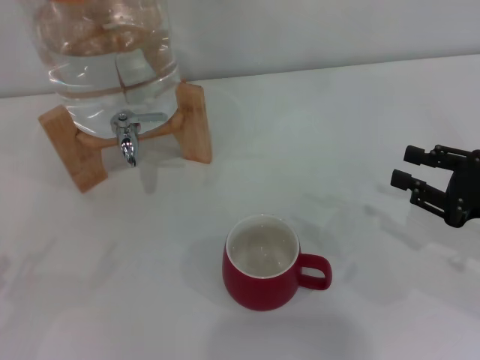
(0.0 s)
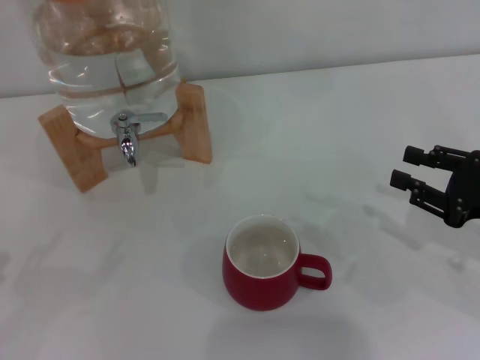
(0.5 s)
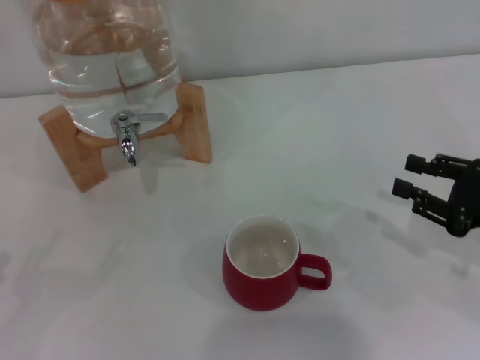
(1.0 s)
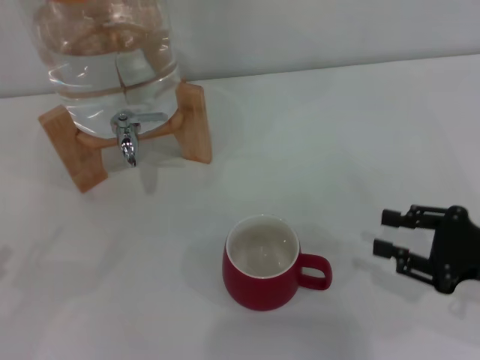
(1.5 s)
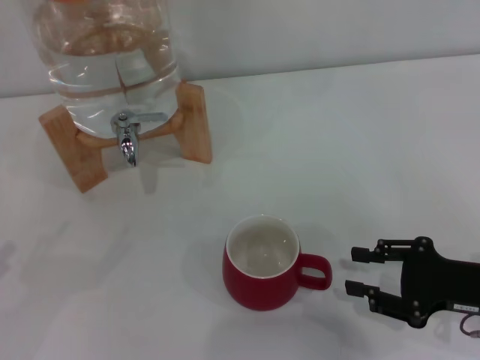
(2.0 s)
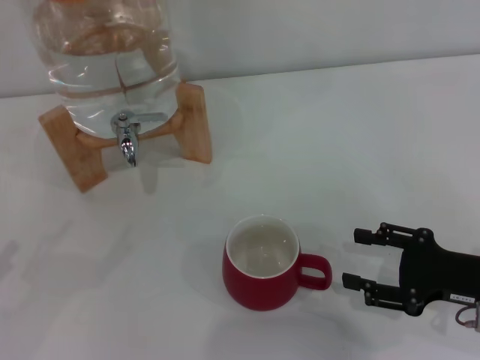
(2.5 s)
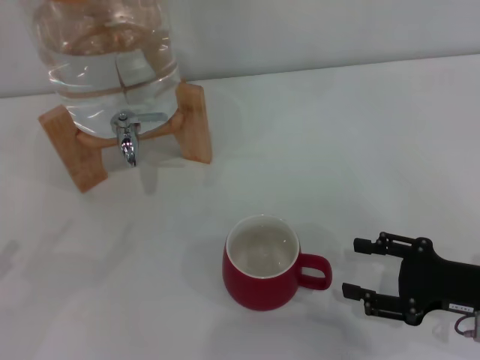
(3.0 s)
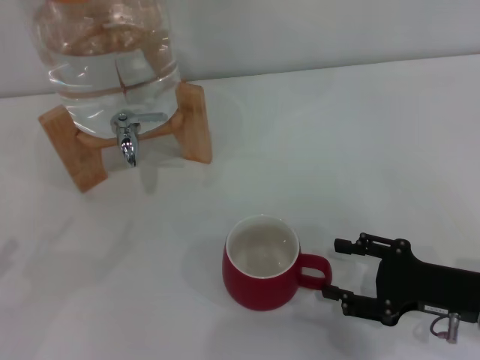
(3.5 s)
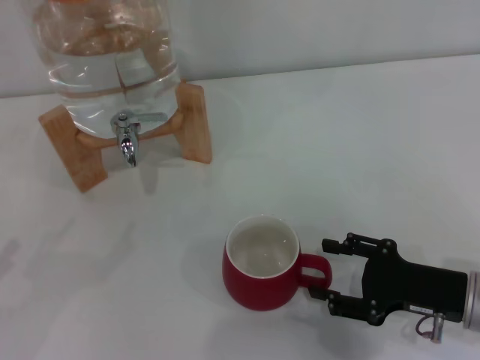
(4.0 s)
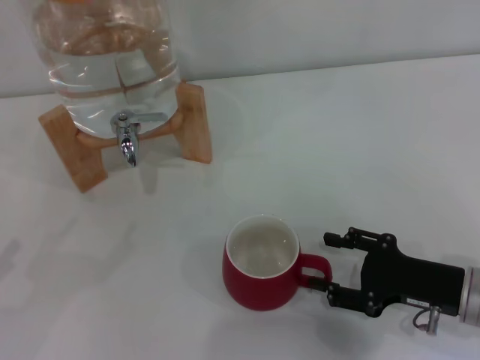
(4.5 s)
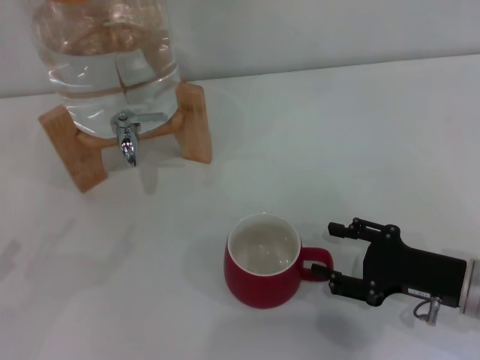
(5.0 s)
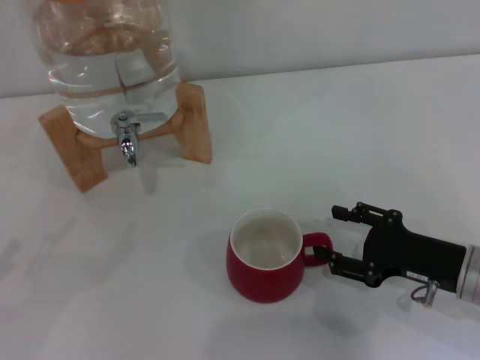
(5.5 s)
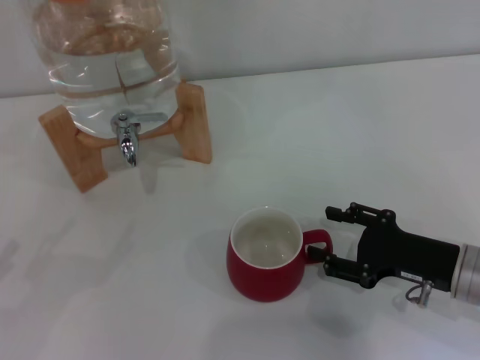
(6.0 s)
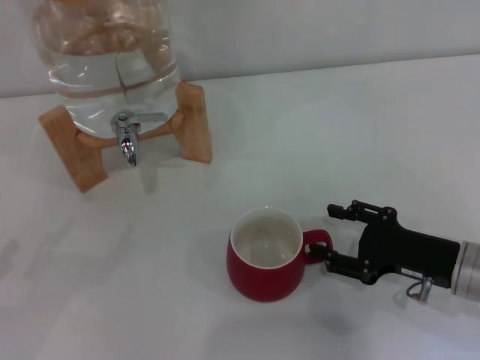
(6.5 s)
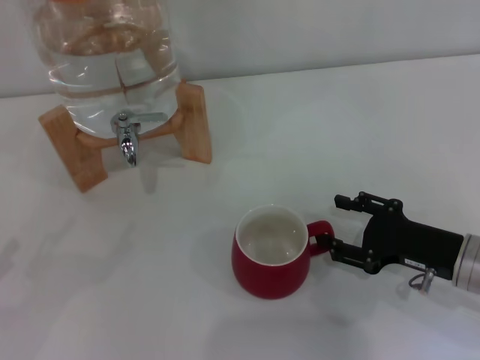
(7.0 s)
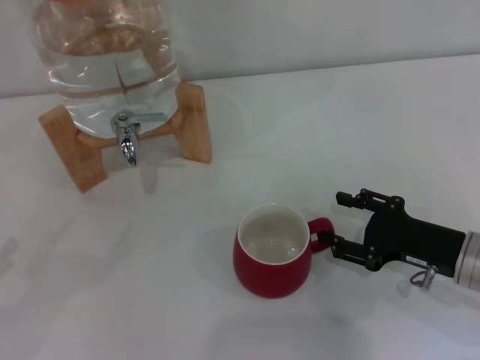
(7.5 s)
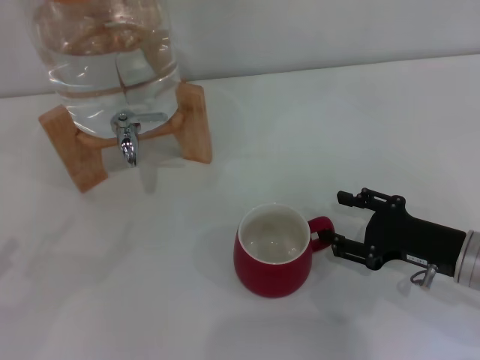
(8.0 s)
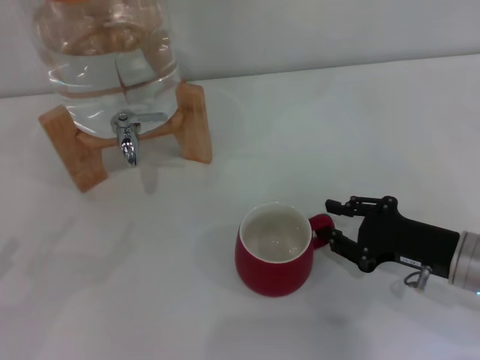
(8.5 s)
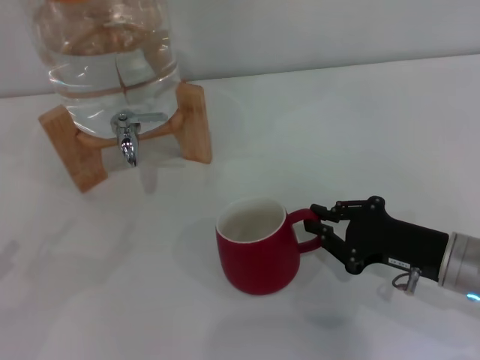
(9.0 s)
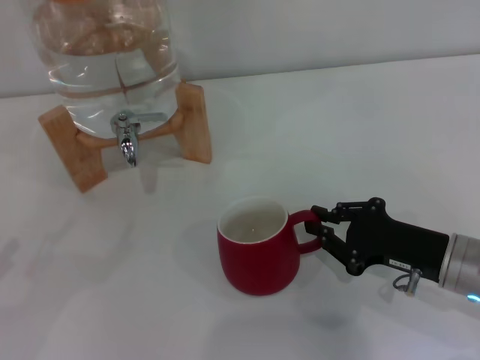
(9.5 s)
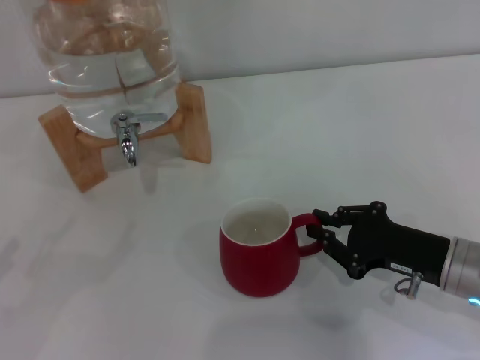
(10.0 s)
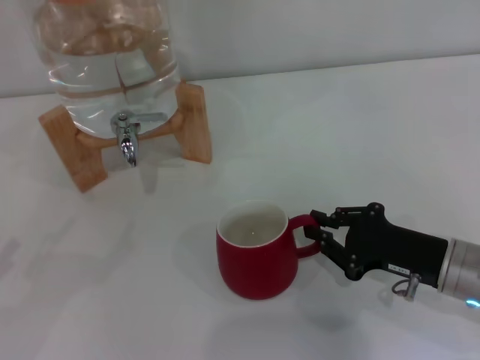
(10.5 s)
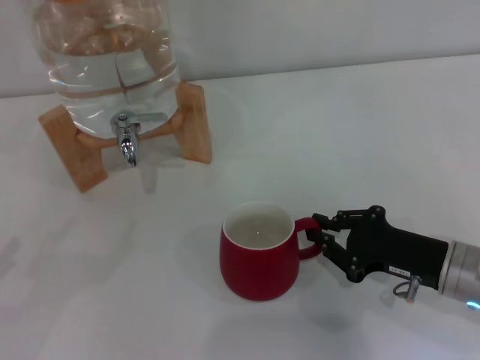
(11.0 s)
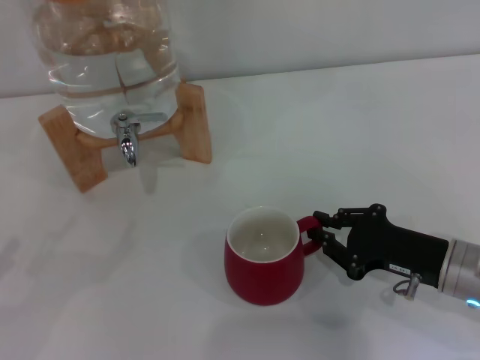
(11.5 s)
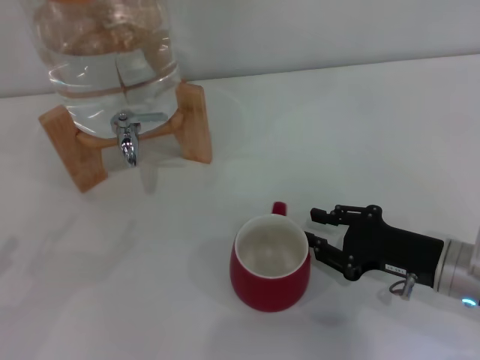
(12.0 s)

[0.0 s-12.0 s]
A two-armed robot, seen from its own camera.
Task of the whole recording: the right gripper pick up the red cup and place it horizontally under the faucet, the left gripper turn on the faucet to fill the cup, and then turn off the faucet.
0.0 to 2.0 s: The right gripper changes place by approximately 5 cm.
2.0 to 4.0 s: The right gripper opens up.
4.0 to 6.0 s: There are only small adjustments of the grippers.
6.0 to 8.0 s: Neither gripper changes place.
8.0 to 10.0 s: The right gripper closes up.
10.0 to 12.0 s: Neither gripper changes place.

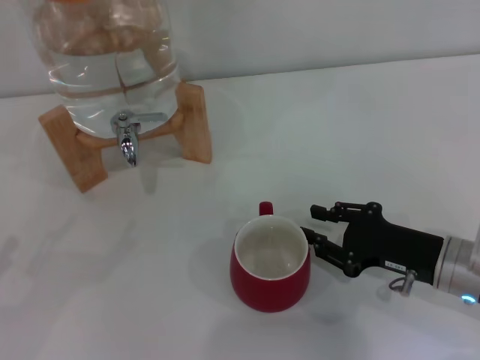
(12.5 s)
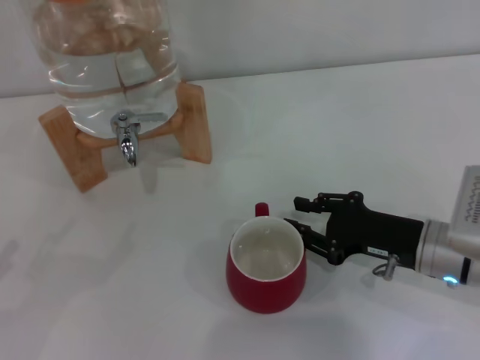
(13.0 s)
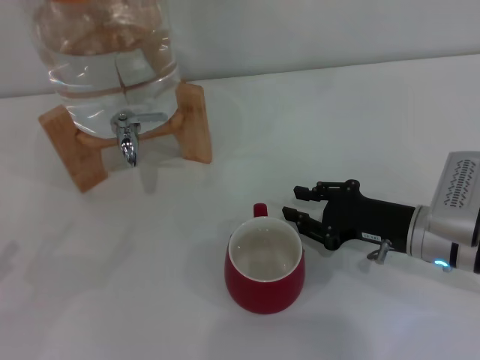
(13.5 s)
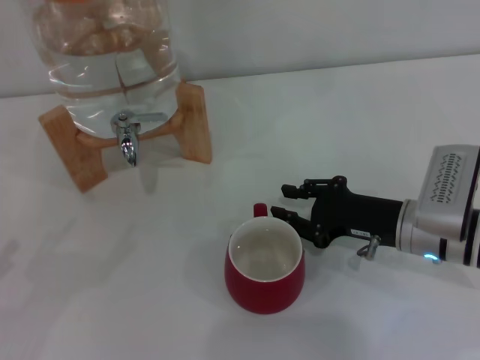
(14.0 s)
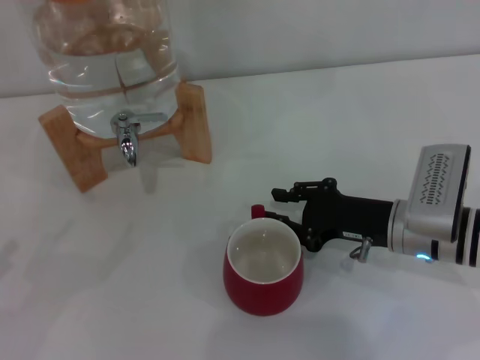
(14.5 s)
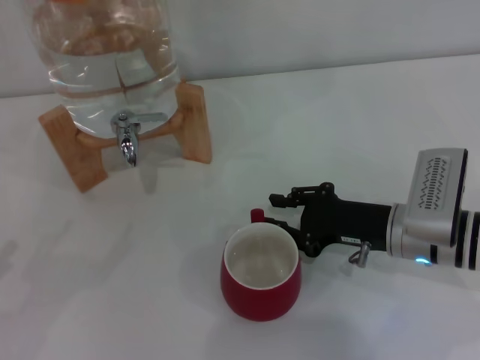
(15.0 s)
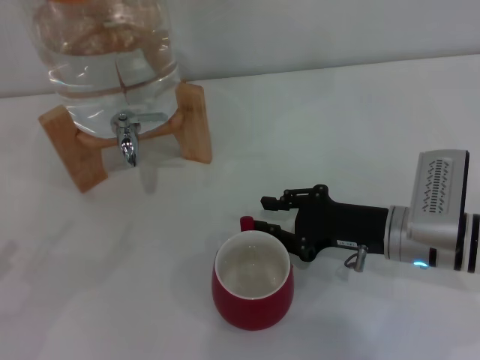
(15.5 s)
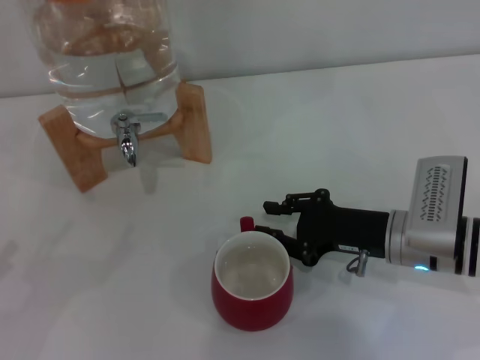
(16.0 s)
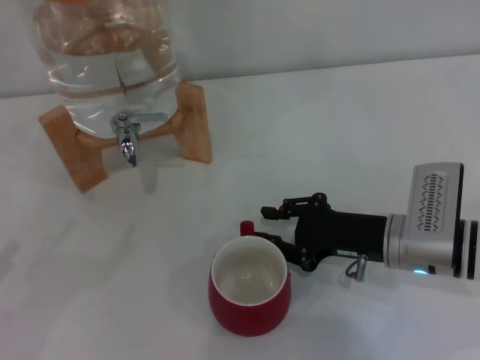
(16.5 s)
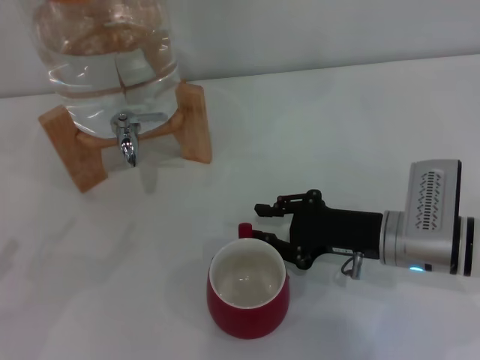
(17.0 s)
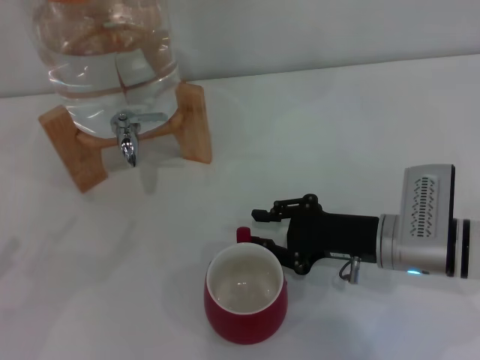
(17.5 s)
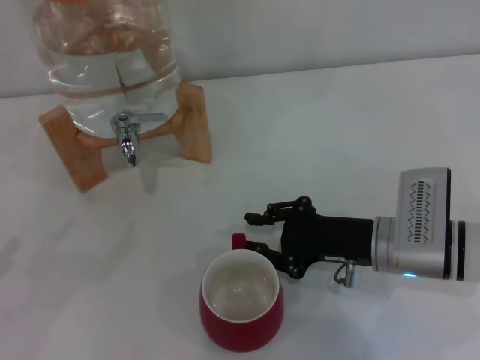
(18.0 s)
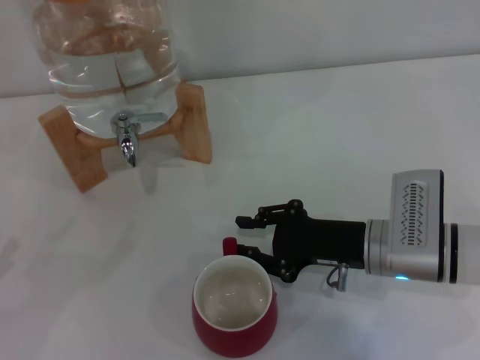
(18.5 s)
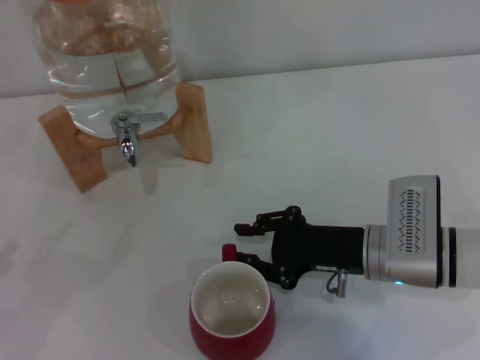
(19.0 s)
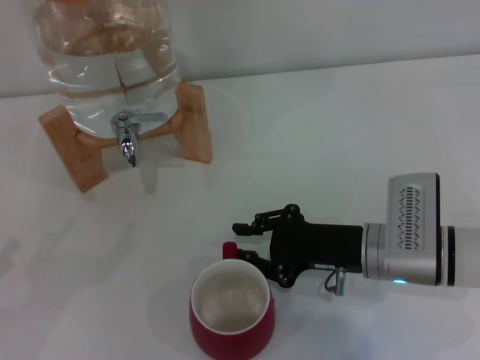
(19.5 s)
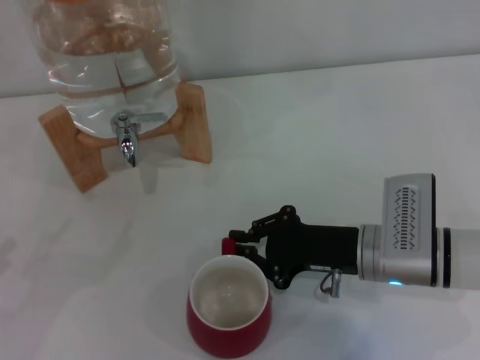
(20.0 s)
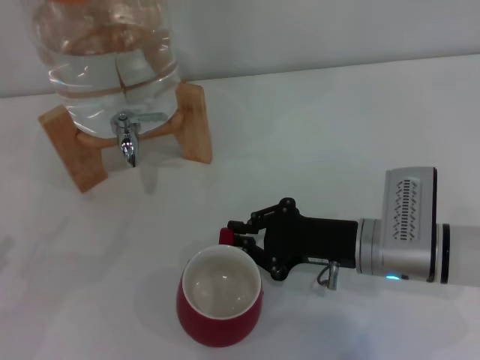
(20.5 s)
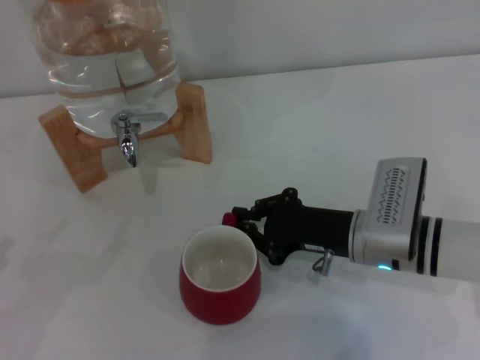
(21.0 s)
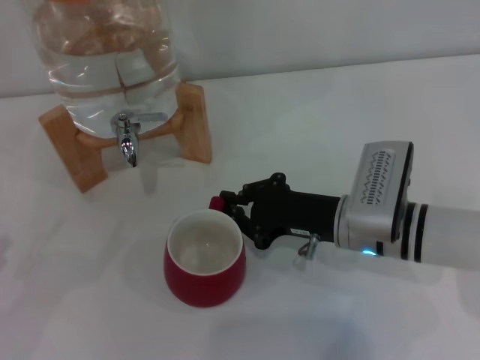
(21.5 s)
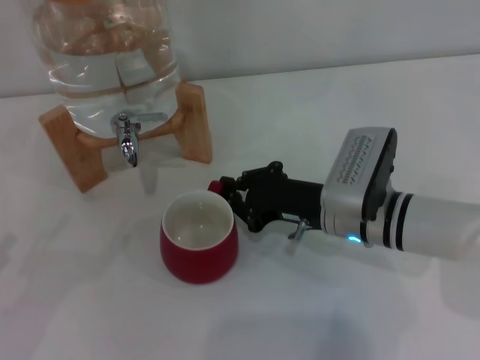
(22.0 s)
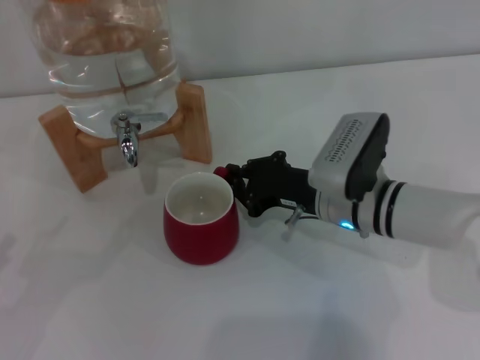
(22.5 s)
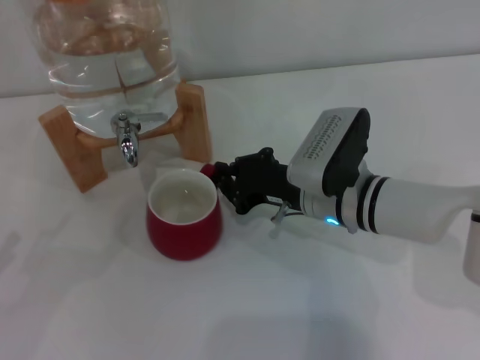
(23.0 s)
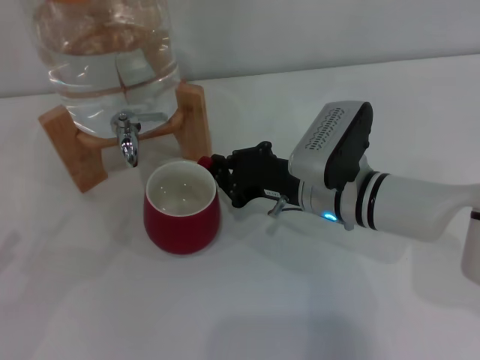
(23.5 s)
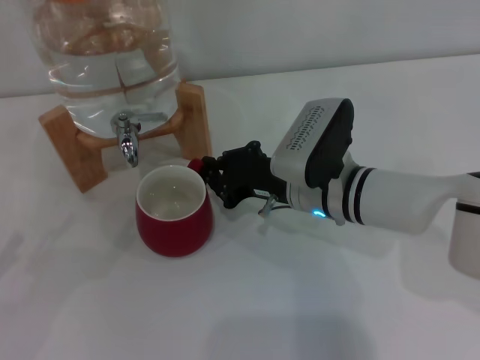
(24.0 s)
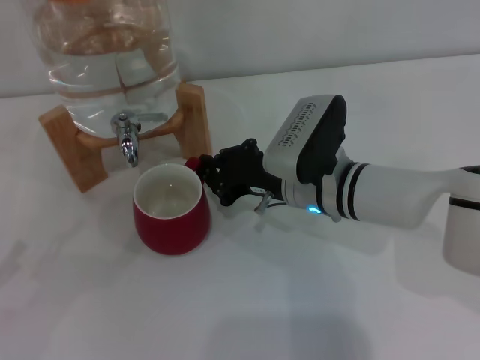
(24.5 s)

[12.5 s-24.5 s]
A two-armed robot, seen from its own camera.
Task of the whole recording: the right gripper pick up the red cup and place it horizontally under the faucet, the left gripper turn on the faucet to fill the cup, and then turn off the faucet.
12.5 to 14.5 s: The right gripper shifts roughly 5 cm forward.
14.5 to 18.5 s: The grippers make only small movements.
18.5 to 20.5 s: The right gripper closes its fingers.
20.5 to 22.5 s: The right gripper travels forward by approximately 5 cm.
22.5 to 24.5 s: The grippers make only small movements.

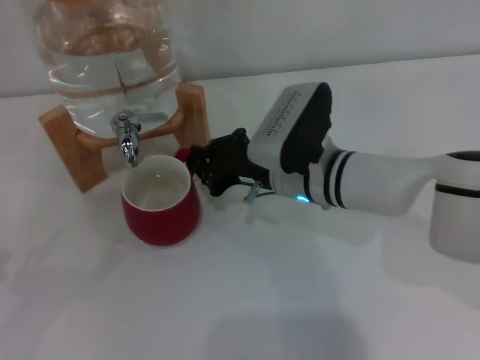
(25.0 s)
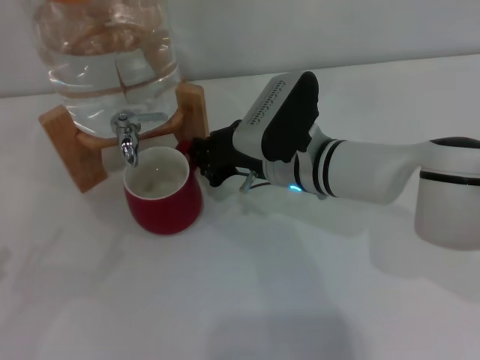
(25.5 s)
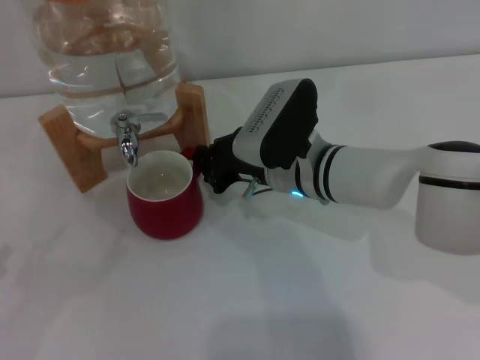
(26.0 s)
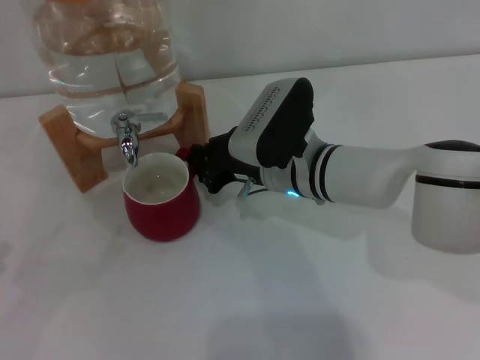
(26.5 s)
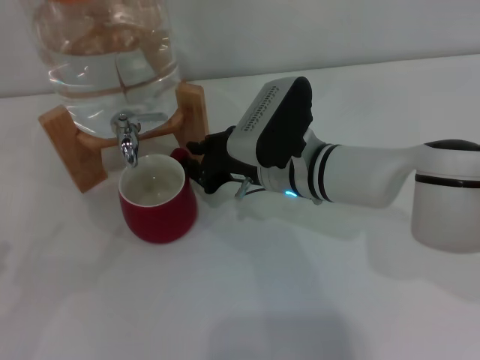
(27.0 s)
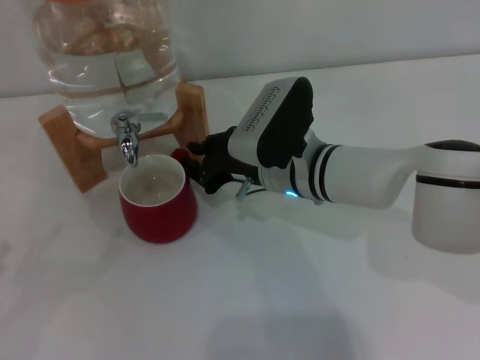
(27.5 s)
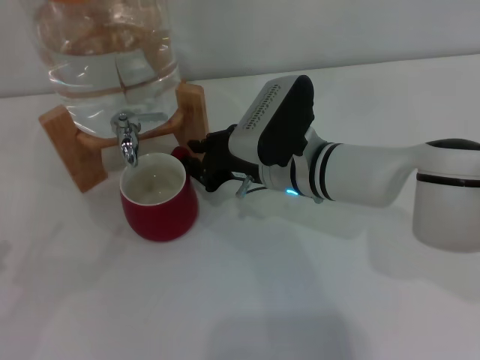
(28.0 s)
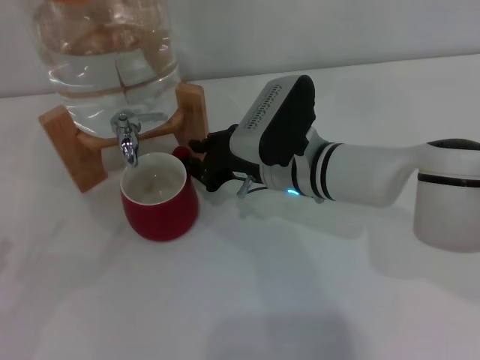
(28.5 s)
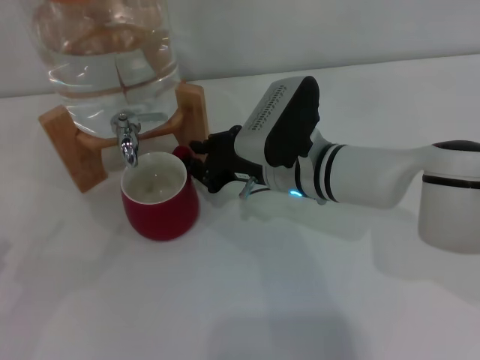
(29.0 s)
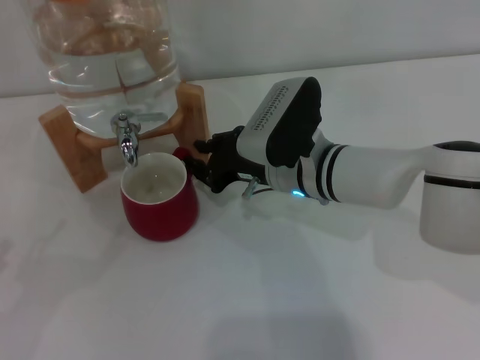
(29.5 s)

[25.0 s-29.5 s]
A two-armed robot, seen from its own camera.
Task of the whole recording: the right gripper pick up the red cup and place it horizontally under the faucet, the left gripper turn on the faucet to fill the cup, and then turn off the faucet.
25.0 to 27.0 s: The grippers stay close to where they were, moving slightly.
27.0 to 29.5 s: Neither gripper changes place.
